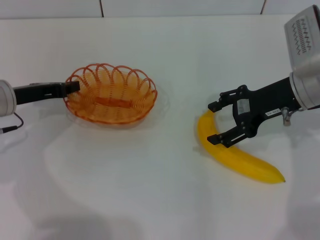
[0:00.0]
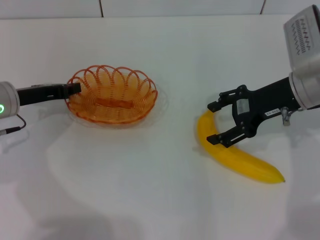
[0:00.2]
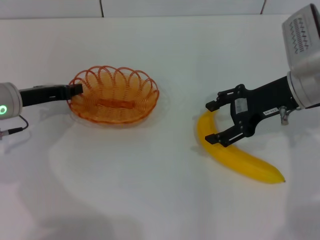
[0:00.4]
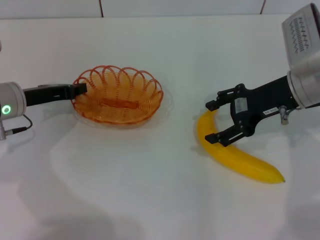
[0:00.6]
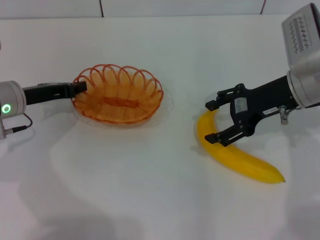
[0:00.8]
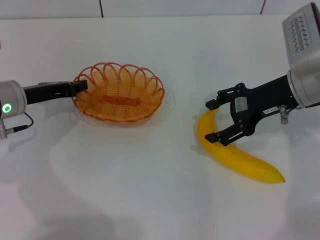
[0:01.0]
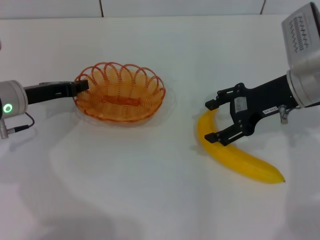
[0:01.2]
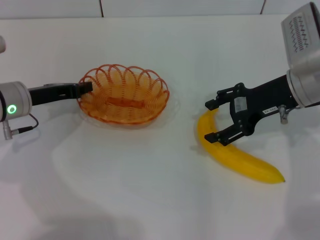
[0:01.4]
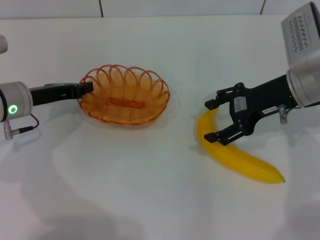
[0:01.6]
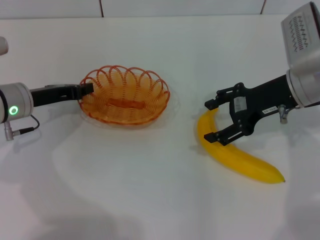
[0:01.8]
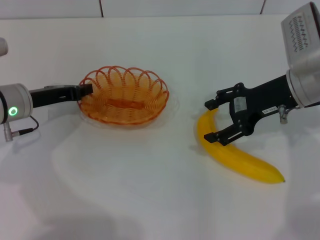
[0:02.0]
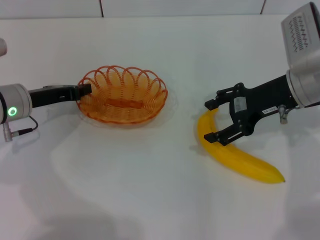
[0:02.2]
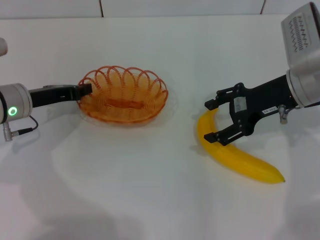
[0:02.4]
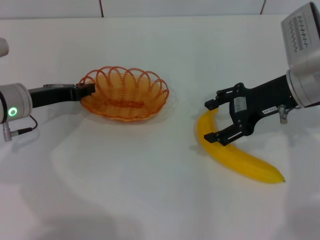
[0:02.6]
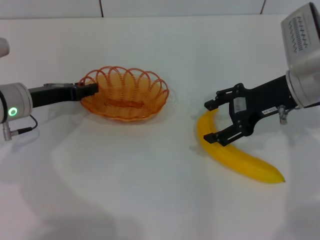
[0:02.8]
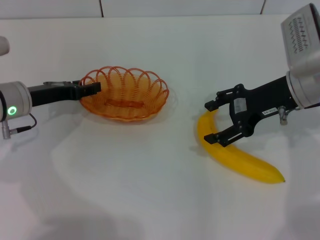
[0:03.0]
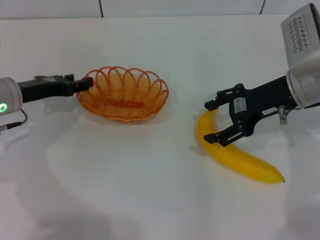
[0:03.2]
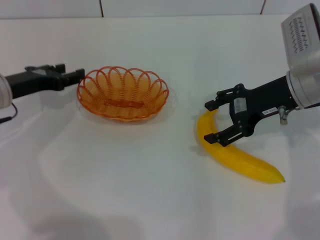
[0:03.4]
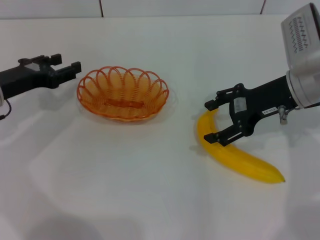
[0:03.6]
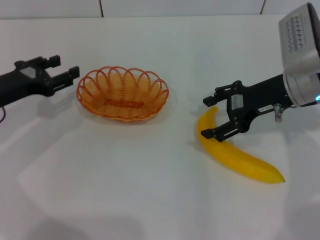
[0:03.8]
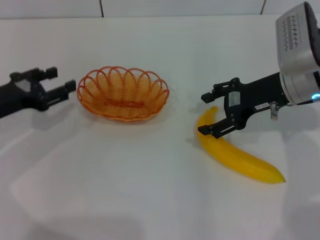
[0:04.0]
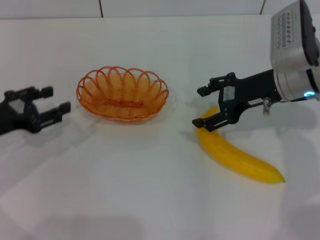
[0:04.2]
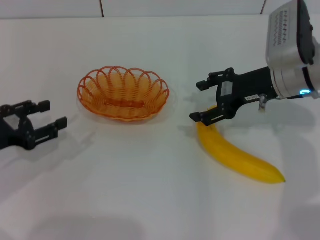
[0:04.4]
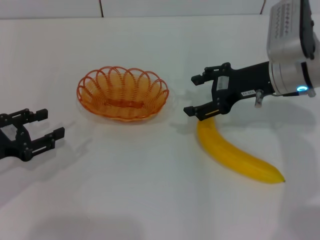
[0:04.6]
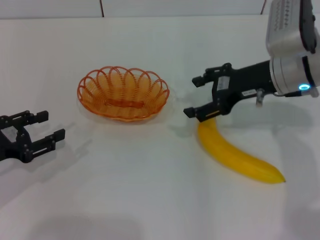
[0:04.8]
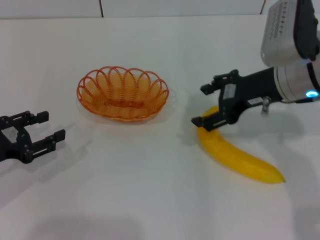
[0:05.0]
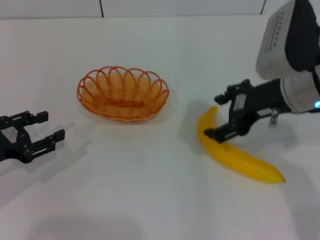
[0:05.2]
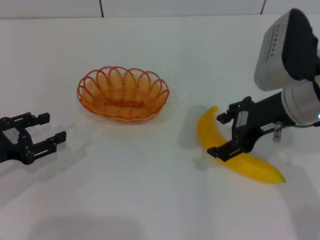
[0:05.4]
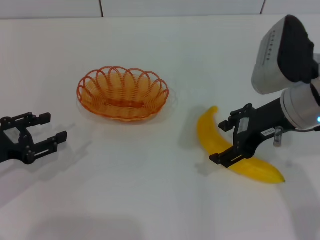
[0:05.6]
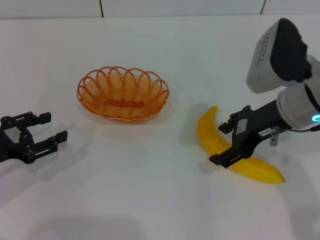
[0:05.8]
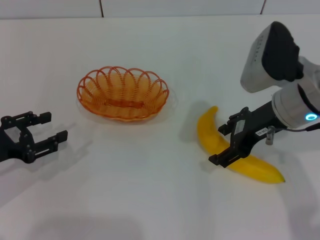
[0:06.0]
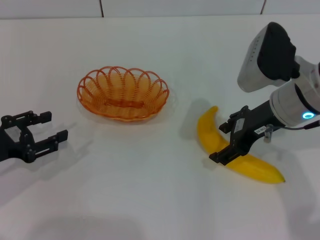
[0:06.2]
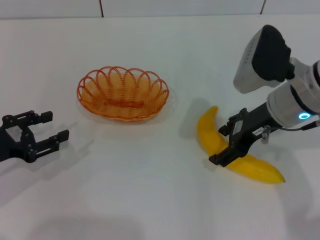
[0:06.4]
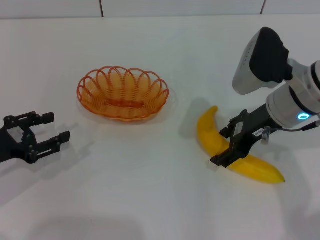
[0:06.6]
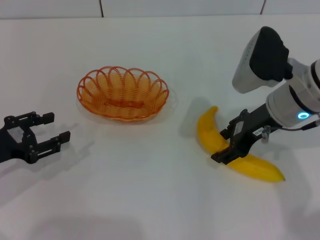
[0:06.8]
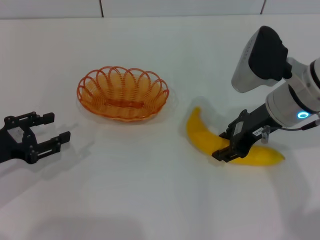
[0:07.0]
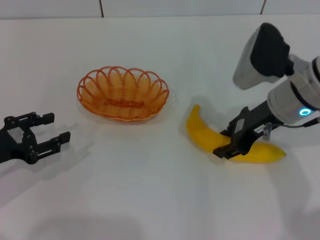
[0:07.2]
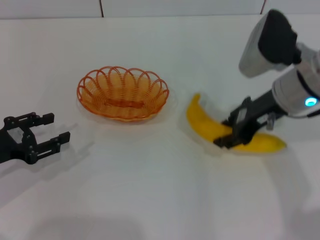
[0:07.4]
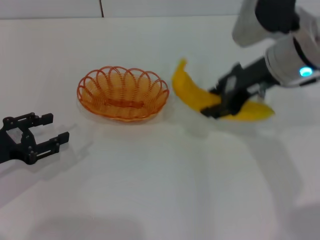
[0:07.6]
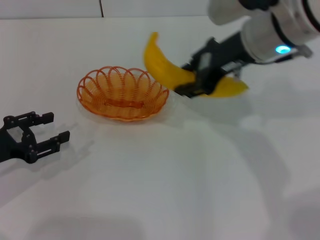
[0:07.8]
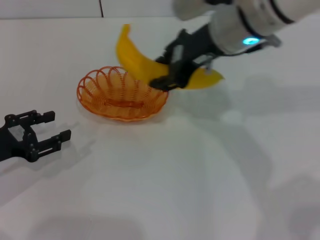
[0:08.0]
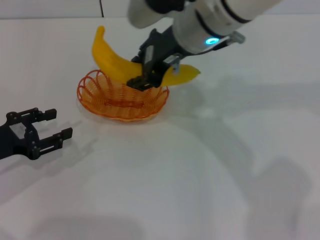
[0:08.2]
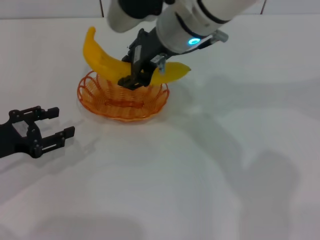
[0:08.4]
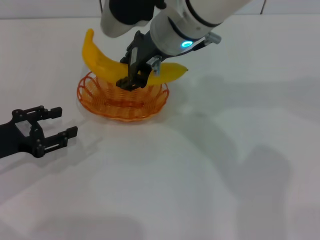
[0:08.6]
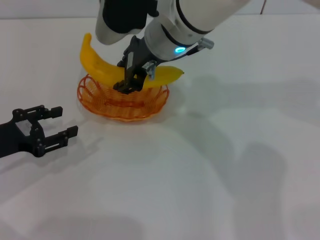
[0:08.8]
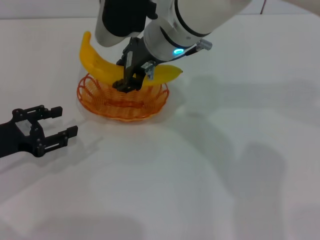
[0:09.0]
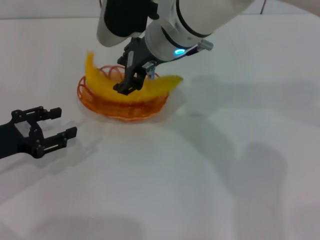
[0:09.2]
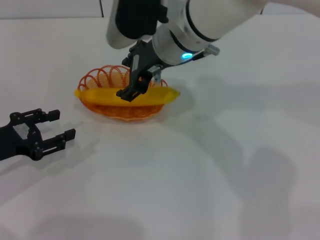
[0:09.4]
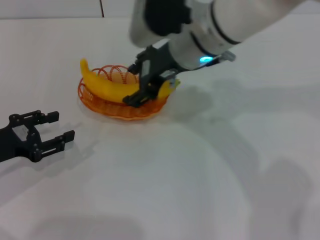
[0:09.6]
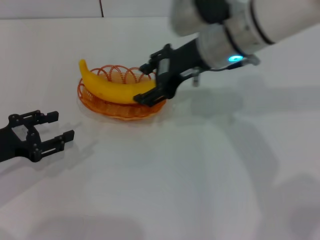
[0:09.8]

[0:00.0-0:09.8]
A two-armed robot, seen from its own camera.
Step, 0:00.0 to 0:03.4: Place the basket in the center of view with the left gripper.
Step, 0:03.6 to 0:07.4: Pick up the banana with the right gripper.
Step, 0:07.6 to 0:09.6: Place the banana into the basket with the right gripper.
0:00.0 to 0:01.4: The grippers stay close to where they were, moving slightly.
0:01.4 to 0:02.8: Neither gripper changes place.
0:02.8 to 0:04.2: The left gripper shifts roughly 10 cm backward and to the left, and opens.
0:04.2 to 0:05.6: The right gripper heads backward, covering roughly 5 cm.
0:05.6 to 0:07.0: The right gripper closes up.
0:07.0 to 0:08.4: The right gripper shifts approximately 20 cm to the left, upward and forward, and closes up.
0:08.4 to 0:09.8: The right gripper is displaced to the right by some 5 cm, and opens up.

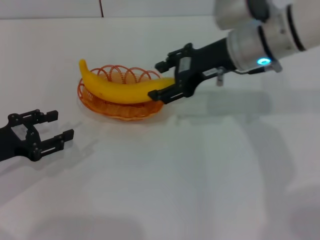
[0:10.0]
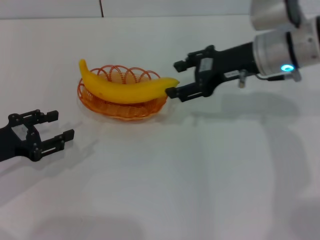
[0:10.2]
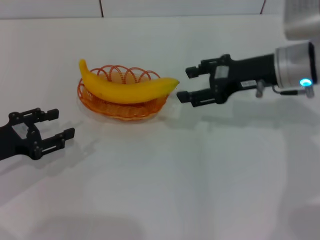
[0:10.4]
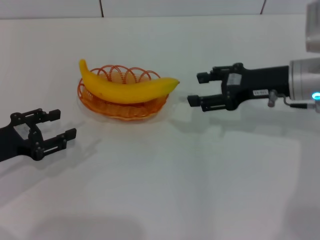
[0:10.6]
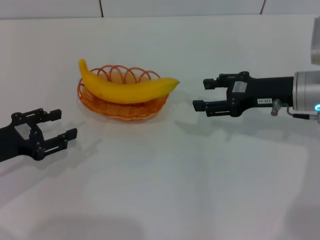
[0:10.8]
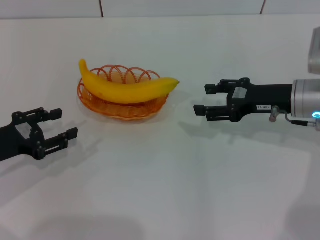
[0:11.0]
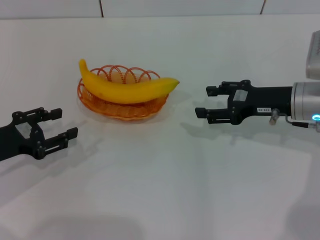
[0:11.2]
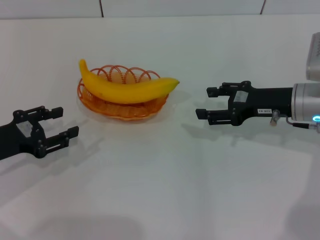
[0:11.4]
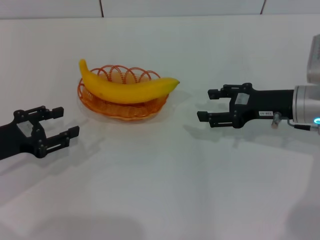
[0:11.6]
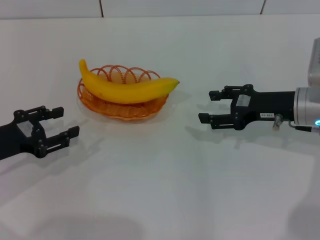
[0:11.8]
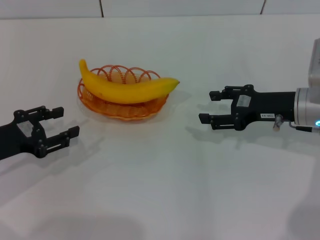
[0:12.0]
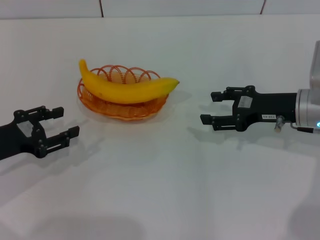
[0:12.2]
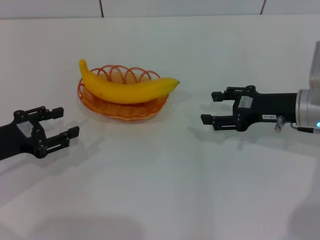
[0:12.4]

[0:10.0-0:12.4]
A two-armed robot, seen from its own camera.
0:10.0 to 0:11.2: The right gripper goes approximately 15 cm to the right, downward and backward.
0:11.2 to 0:12.4: Neither gripper changes place.
